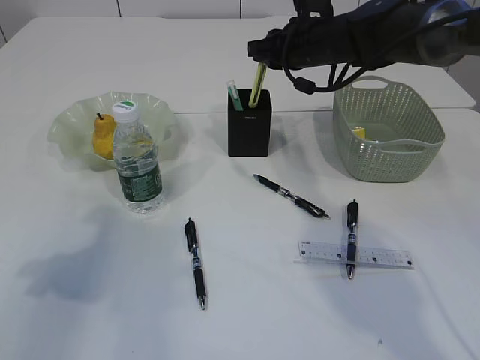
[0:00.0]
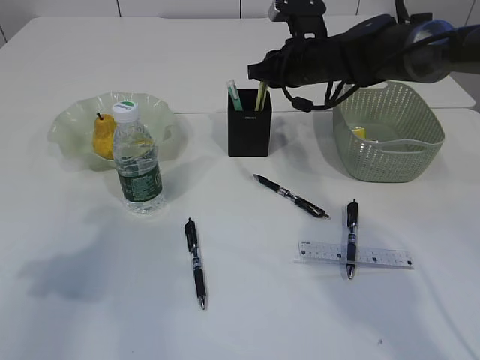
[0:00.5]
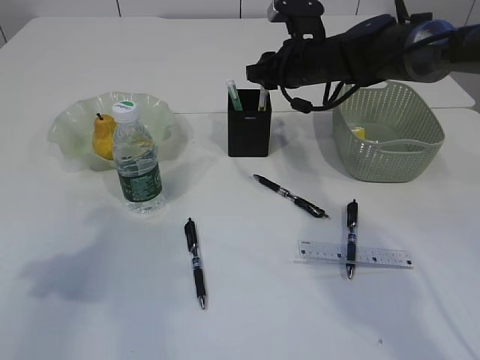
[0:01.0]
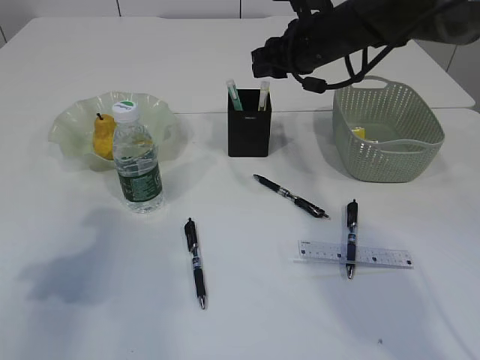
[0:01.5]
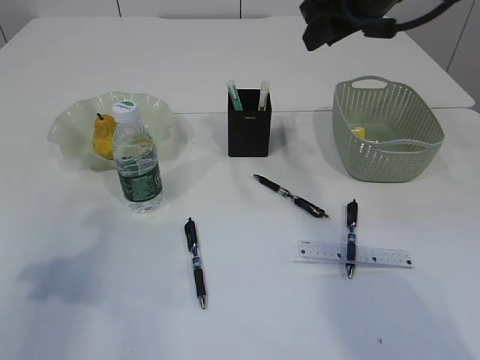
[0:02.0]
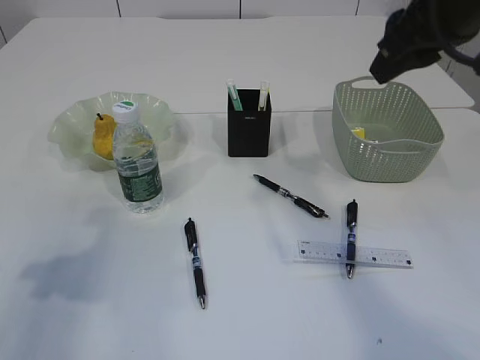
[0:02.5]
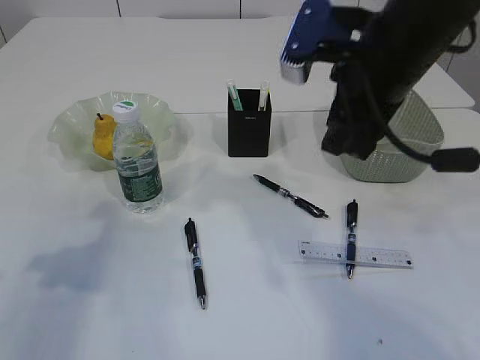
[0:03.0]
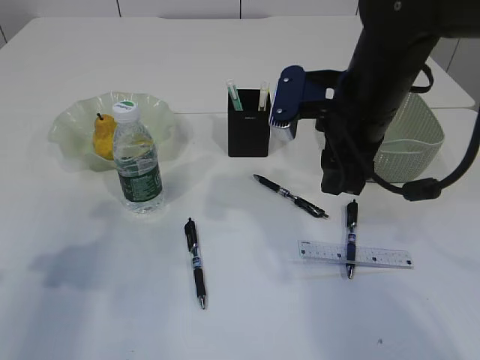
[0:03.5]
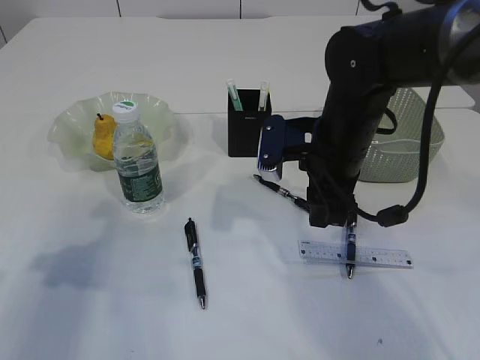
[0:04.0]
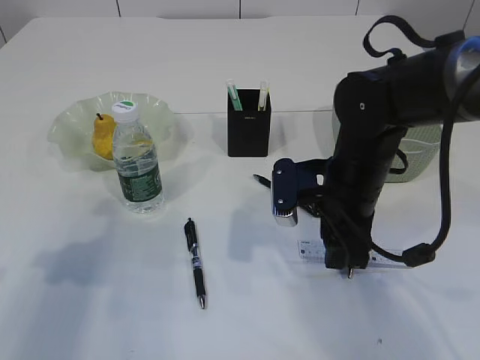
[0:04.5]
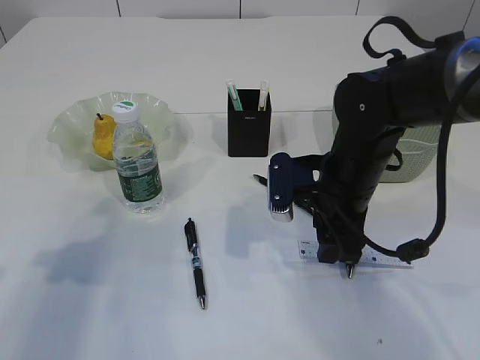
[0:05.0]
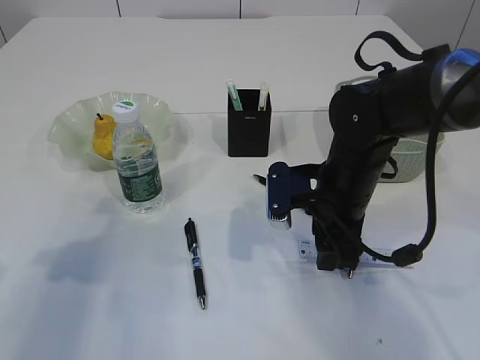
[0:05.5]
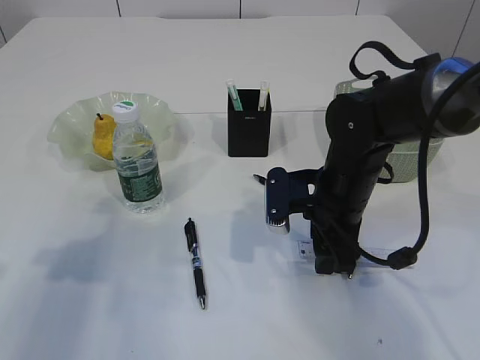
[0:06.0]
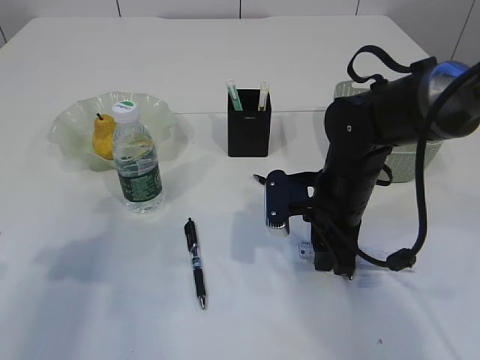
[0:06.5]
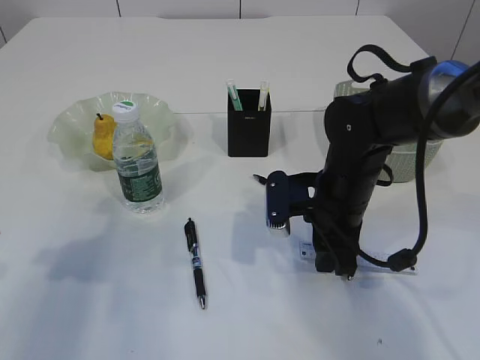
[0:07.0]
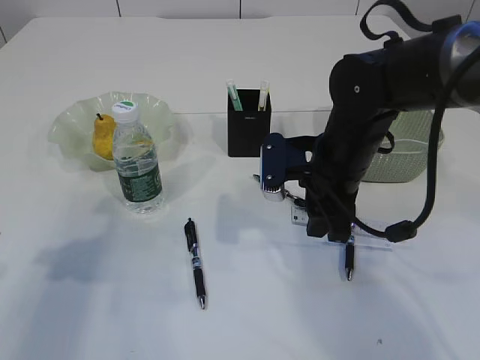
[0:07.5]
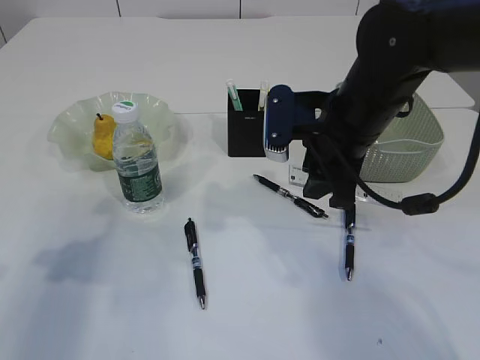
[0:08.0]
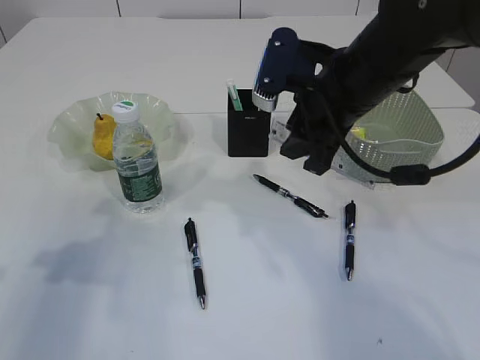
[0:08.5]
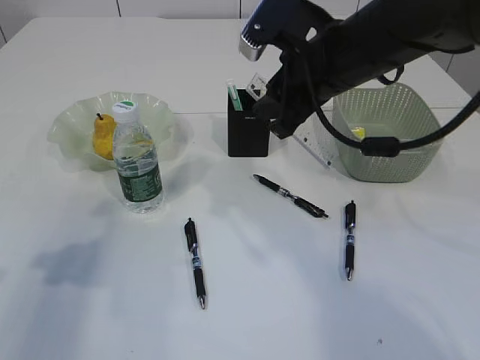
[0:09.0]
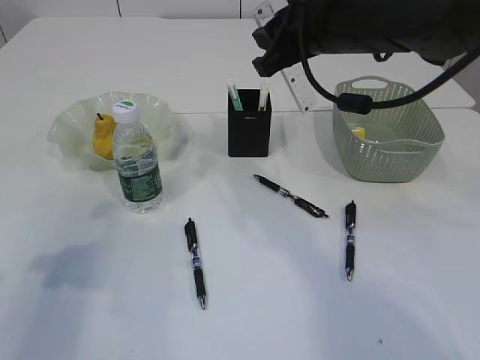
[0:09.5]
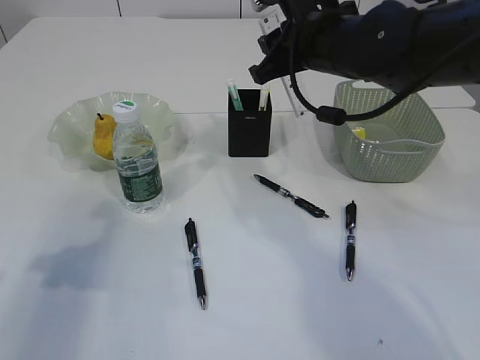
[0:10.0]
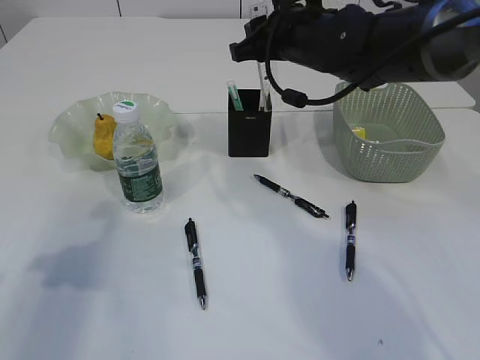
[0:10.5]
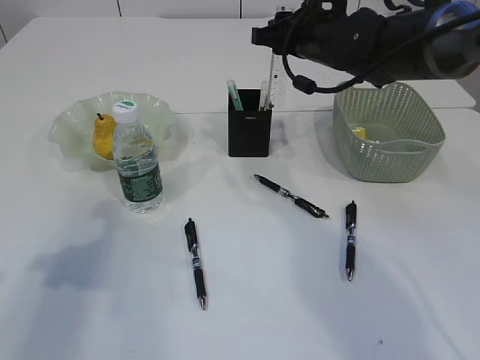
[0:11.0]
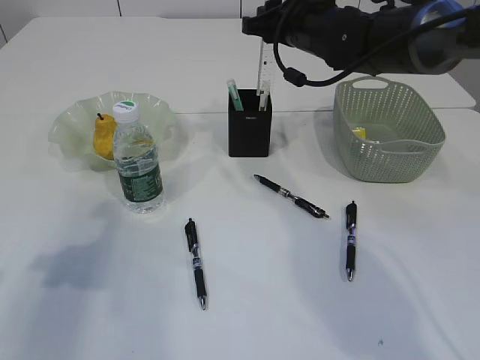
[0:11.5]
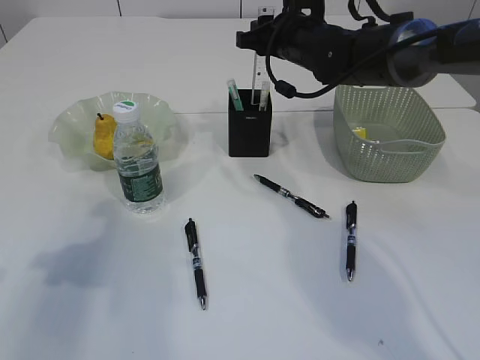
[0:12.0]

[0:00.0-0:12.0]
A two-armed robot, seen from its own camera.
Step, 0:00.0 to 0:02.0: place the yellow knife into the pen holder.
Step, 0:02.5 to 0:08.5: pick up the ruler.
0:00.0 to 0:02.0: The right gripper goes approximately 15 cm upward and backward.
0:02.0 to 0:04.0: The right gripper shifts approximately 15 cm downward.
0:04.0 to 0:06.0: The right gripper goes approximately 5 cm downward.
0:06.0 to 0:08.0: The right gripper shifts approximately 10 cm upward, and closes up.
0:08.0 to 0:10.0: The right gripper goes some 5 cm forward.
0:10.0 to 0:12.0: The right gripper is displaced forward by approximately 10 cm.

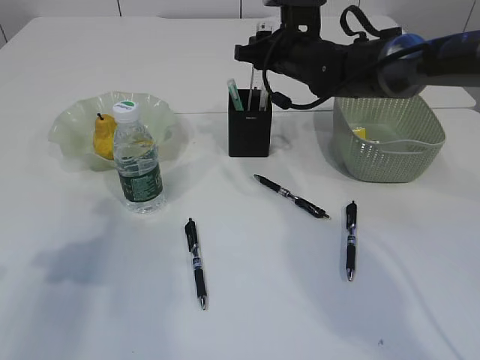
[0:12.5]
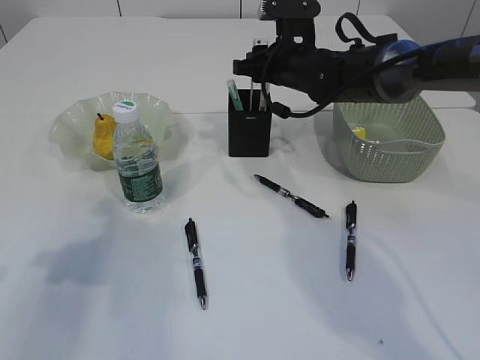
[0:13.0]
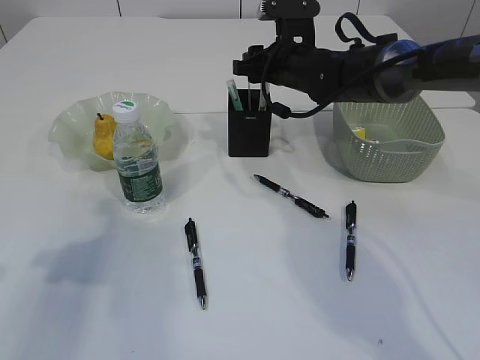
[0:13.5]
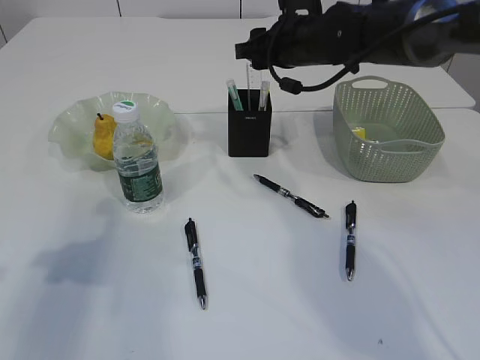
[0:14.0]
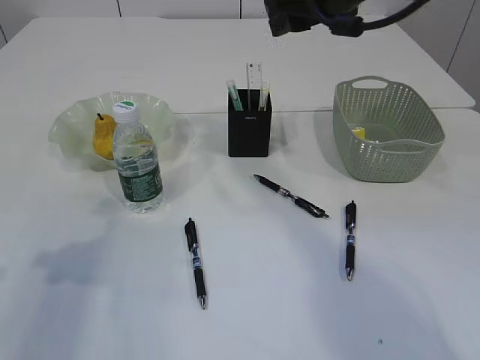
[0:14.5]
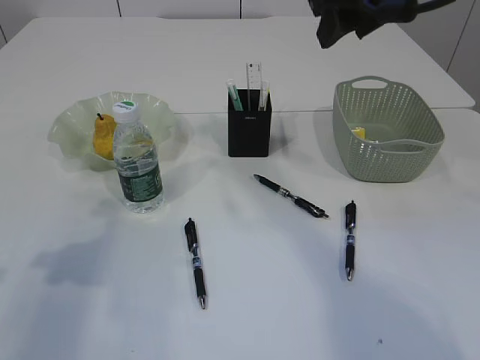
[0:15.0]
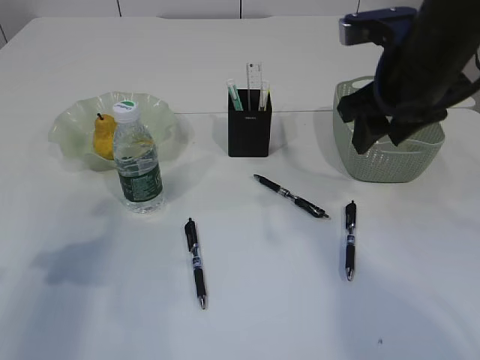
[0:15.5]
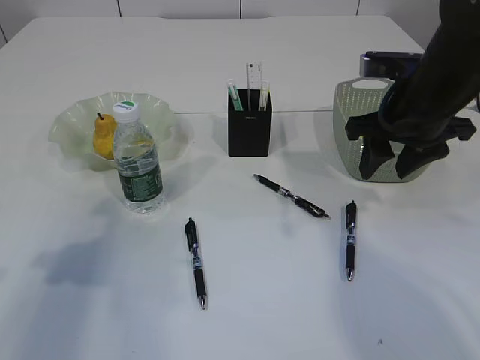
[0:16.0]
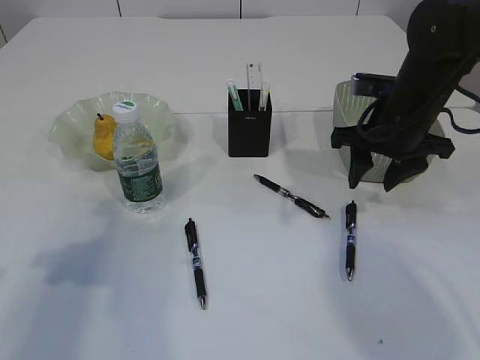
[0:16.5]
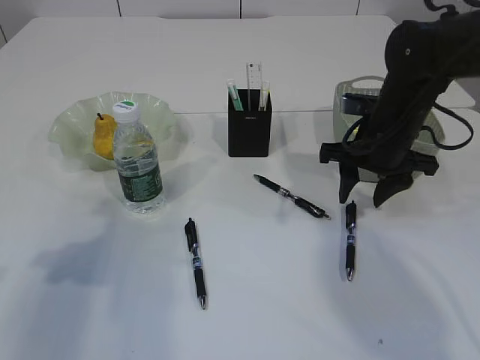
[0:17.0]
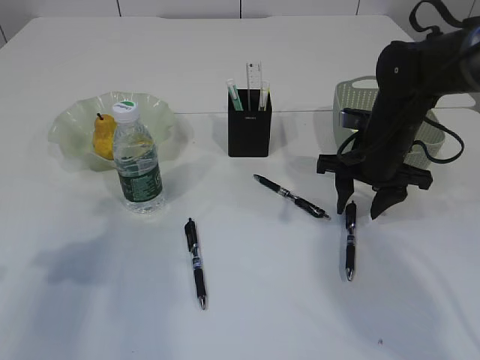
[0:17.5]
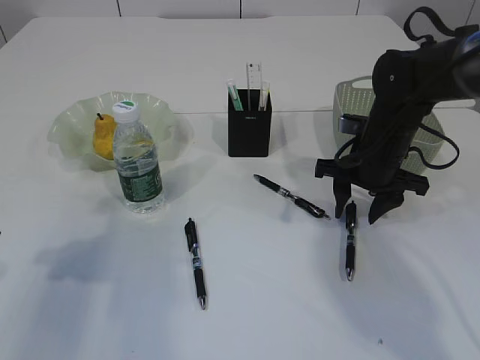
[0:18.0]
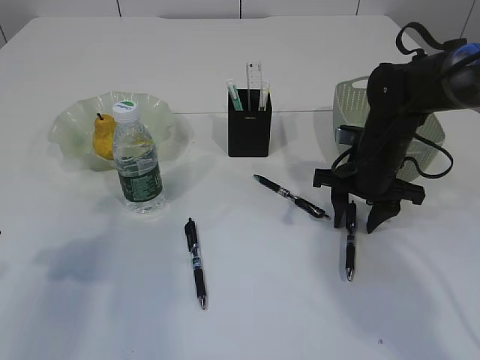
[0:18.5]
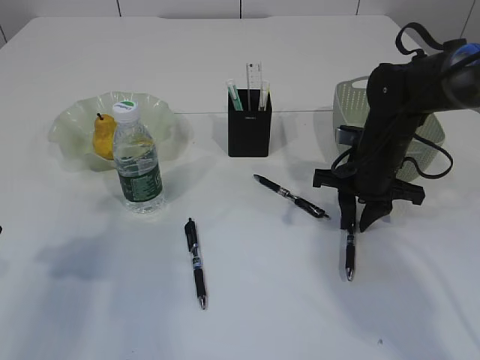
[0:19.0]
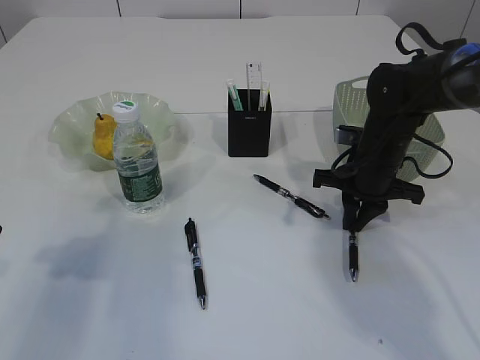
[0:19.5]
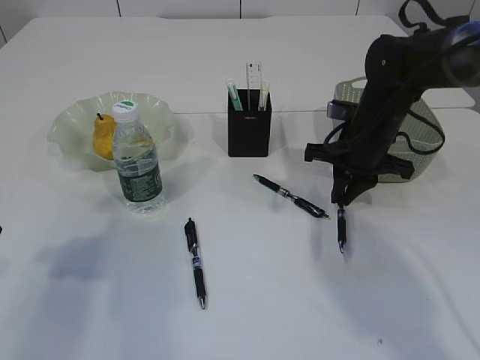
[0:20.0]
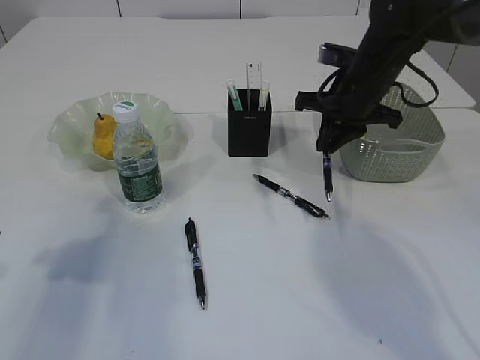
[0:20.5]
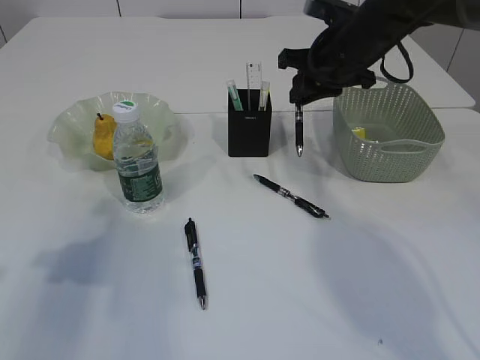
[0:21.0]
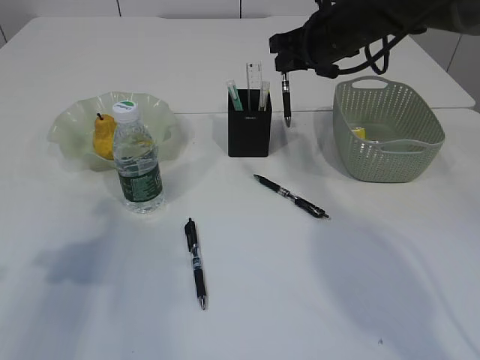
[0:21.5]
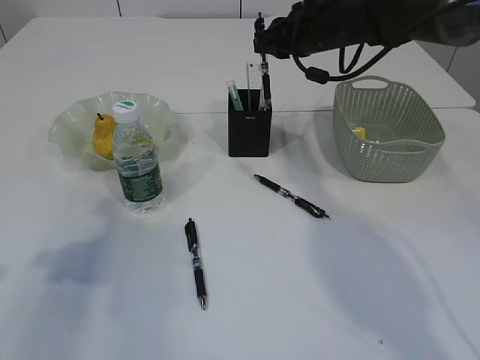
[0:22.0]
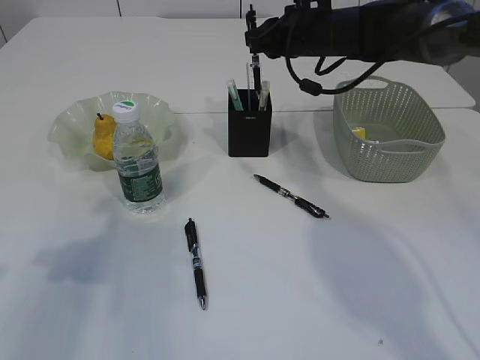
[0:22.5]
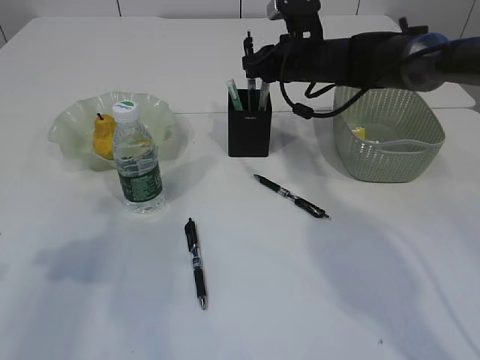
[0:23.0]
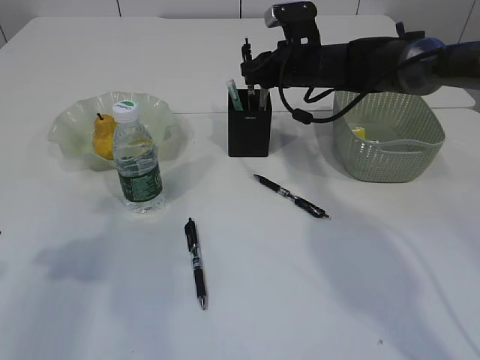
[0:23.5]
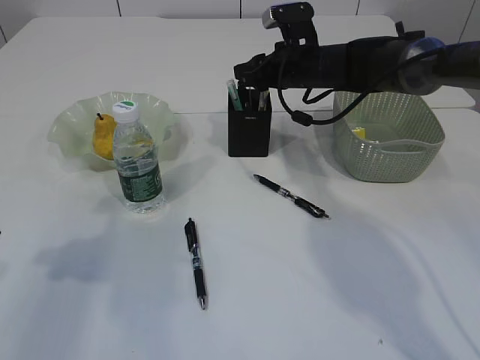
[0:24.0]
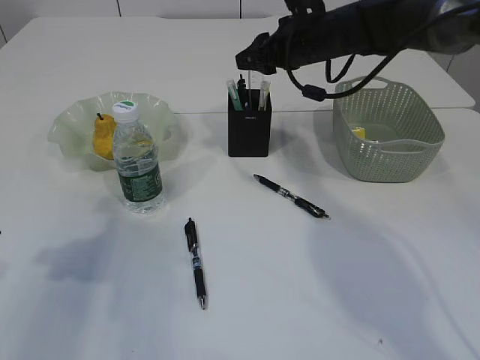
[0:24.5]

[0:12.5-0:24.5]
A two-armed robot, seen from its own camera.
Step, 0:12.5 to 0:14.5: Place the ruler into the pen holder.
Step, 0:15.0 to 0:21.0: Pick up the pen with right arm.
0:12.5 to 0:14.5: The right gripper moves upward and backward, about 15 cm.
0:14.5 to 0:16.5: The right gripper travels downward and to the right by about 15 cm.
0:16.5 to 0:18.5: The right gripper heads downward, covering about 10 cm.
0:18.5 to 0:20.5: The right gripper heads upward, covering roughly 10 cm, and closes up.
0:20.5 to 0:22.5: The right gripper travels forward by roughly 5 cm.
0:22.5 to 0:24.5: The right gripper opens up.

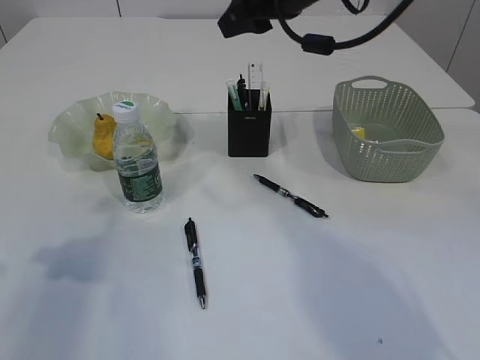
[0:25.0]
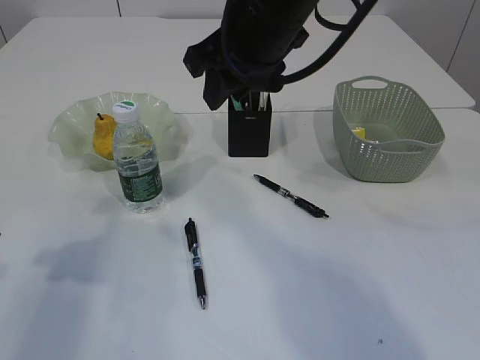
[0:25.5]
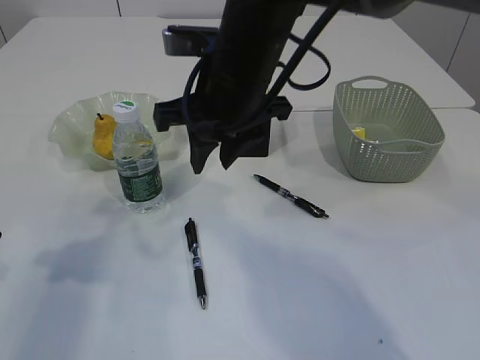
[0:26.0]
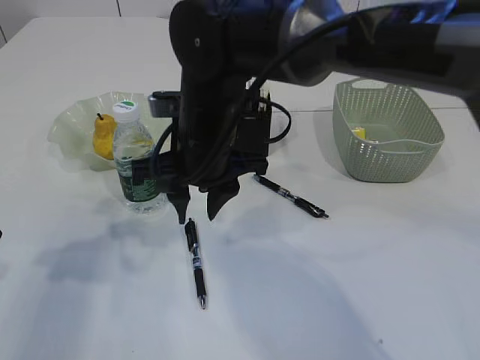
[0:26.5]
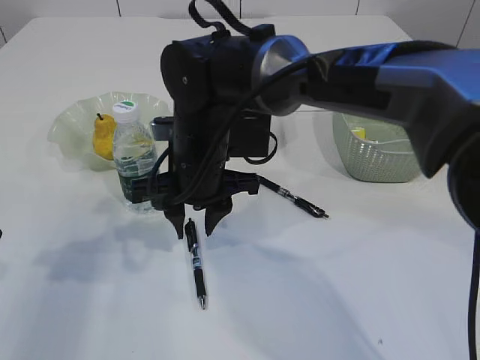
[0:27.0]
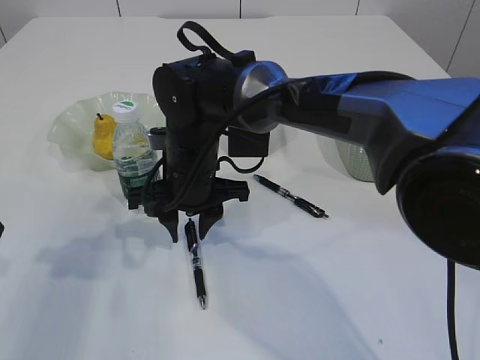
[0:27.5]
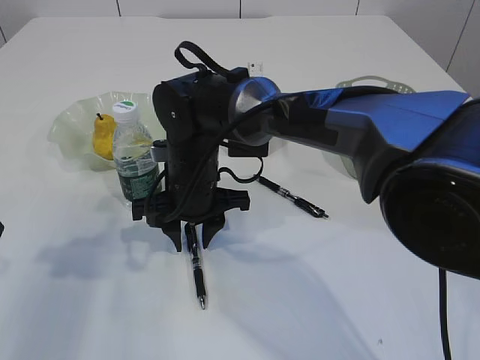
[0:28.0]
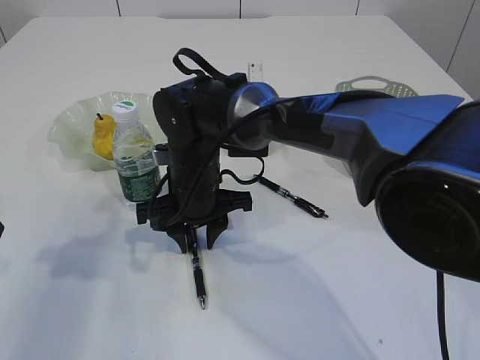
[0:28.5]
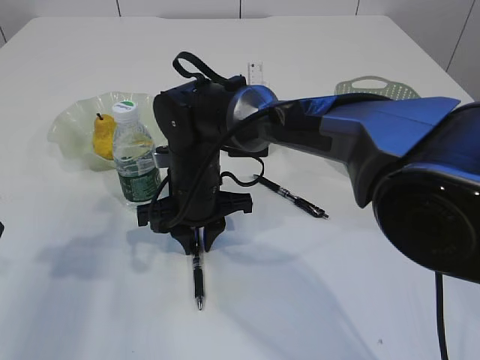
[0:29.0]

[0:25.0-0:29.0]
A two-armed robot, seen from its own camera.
0:25.0 to 0:27.0: The right gripper travels downward, to the left and backward by about 20 cm.
0:27.0 to 0:29.0: The right gripper heads downward, covering roughly 5 cm.
